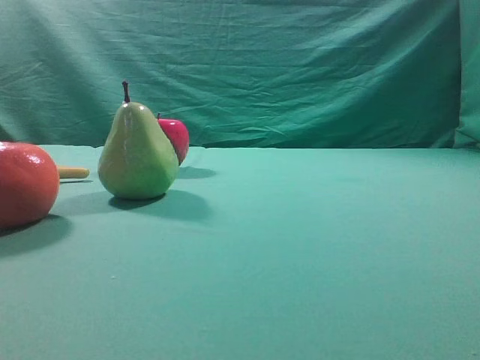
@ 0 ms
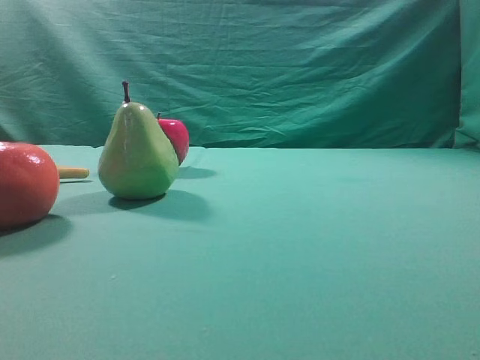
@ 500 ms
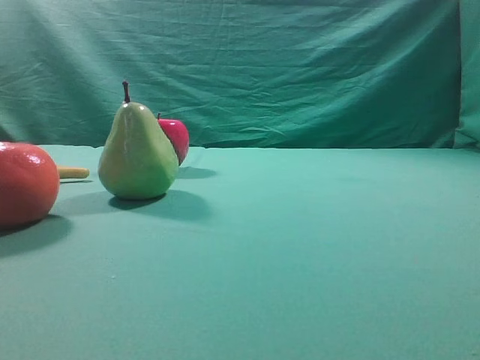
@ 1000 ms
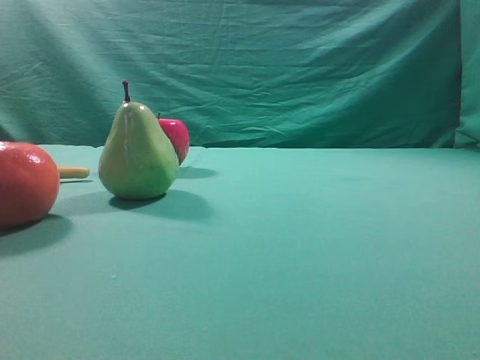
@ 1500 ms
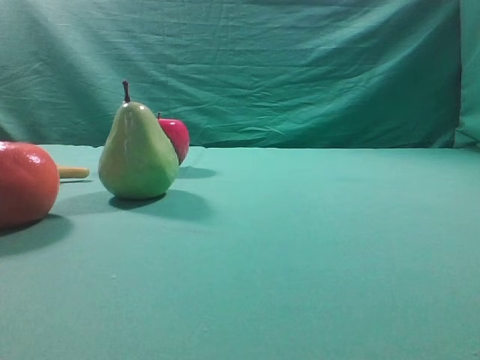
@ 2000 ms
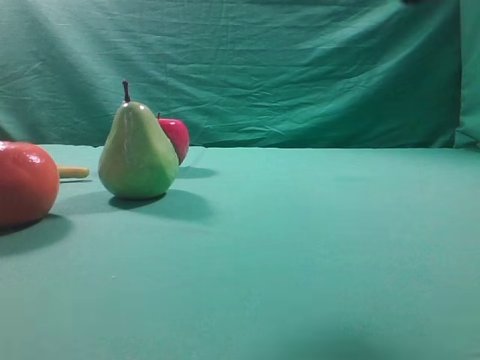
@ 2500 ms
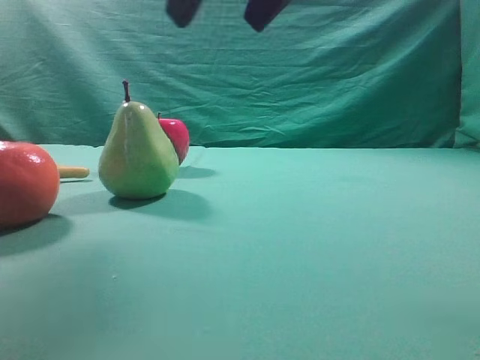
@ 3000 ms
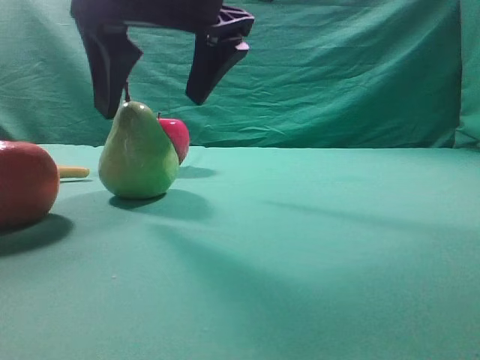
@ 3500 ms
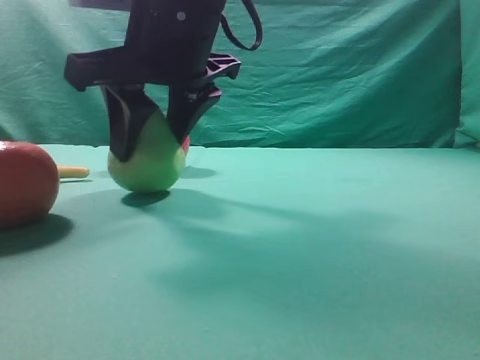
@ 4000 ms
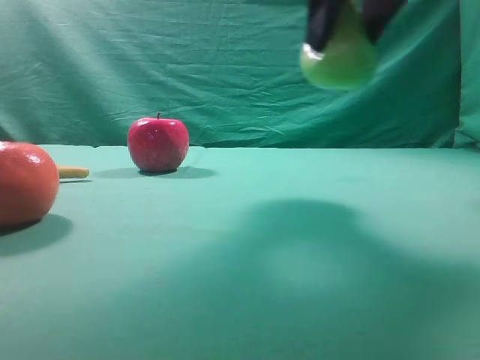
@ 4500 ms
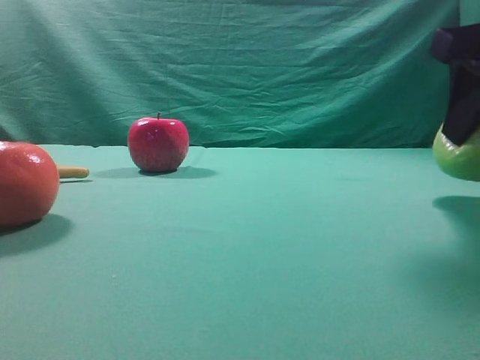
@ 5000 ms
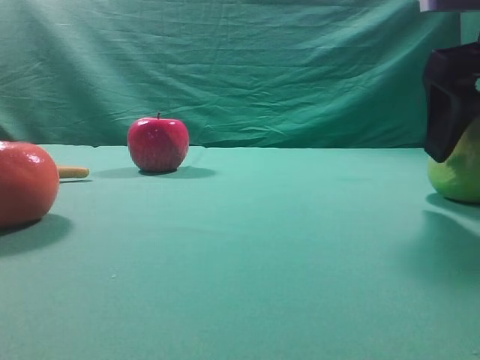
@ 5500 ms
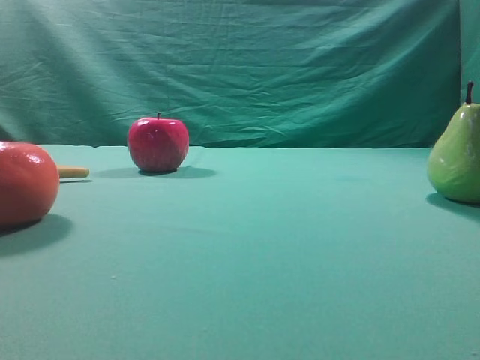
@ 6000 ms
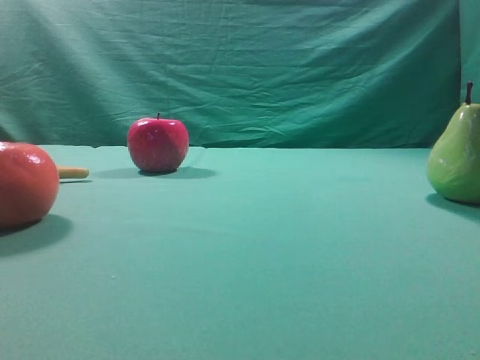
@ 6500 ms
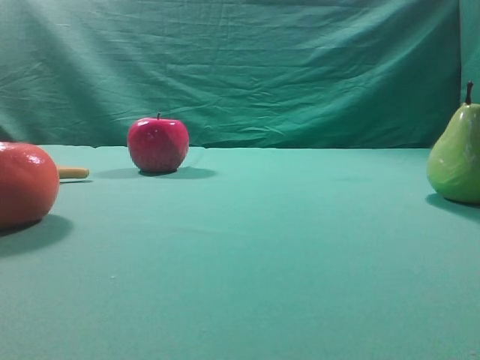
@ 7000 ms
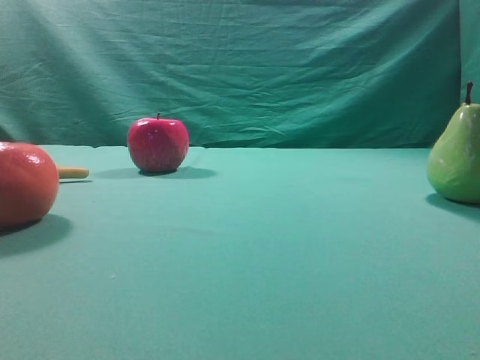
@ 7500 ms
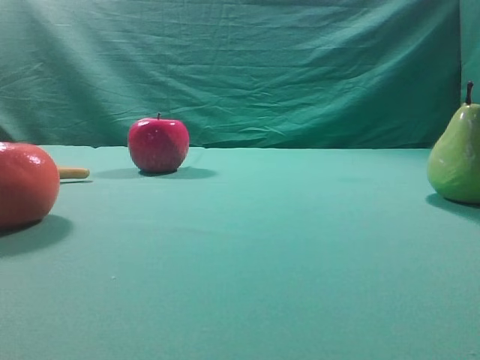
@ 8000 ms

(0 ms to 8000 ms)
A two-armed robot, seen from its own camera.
Task of the whole recording: Grasp the pear and place it on one side of the table.
Step, 0 ms - 4000 ms: Grasp the high-fiber fruit.
Step, 4500 ms - 5500 ms: Place it on the right side of the table.

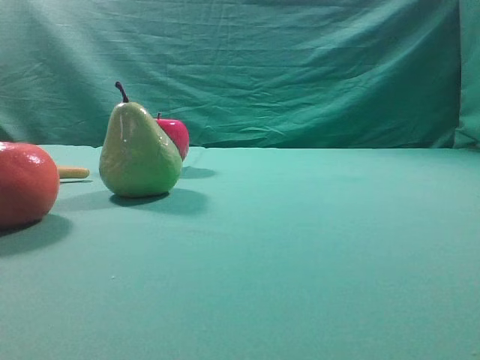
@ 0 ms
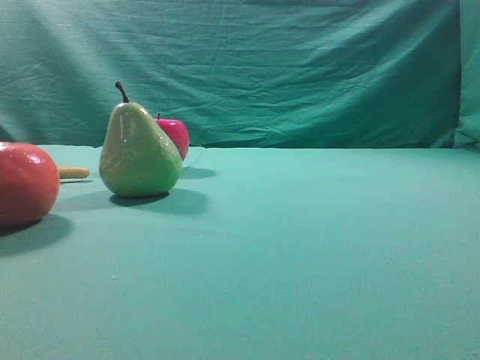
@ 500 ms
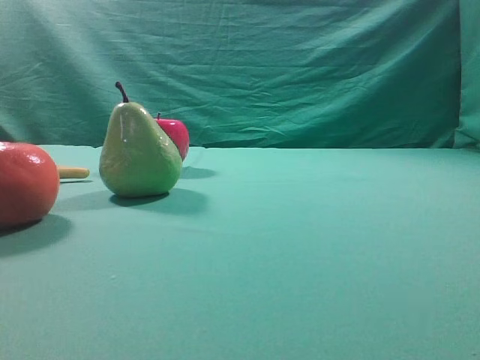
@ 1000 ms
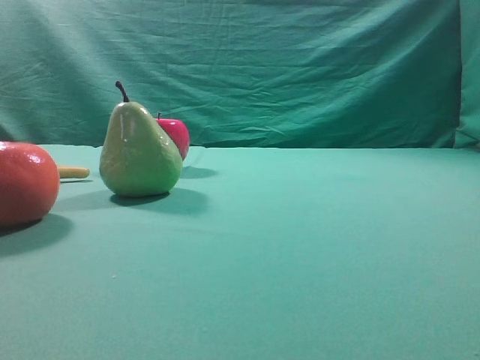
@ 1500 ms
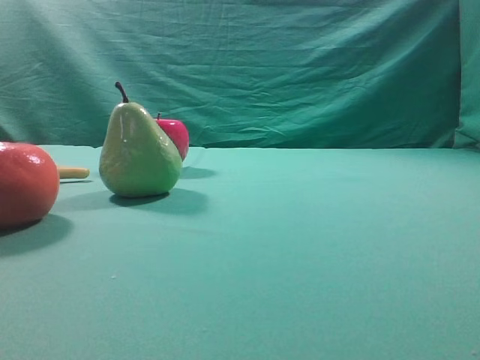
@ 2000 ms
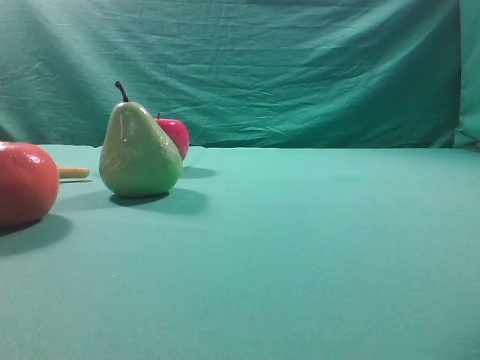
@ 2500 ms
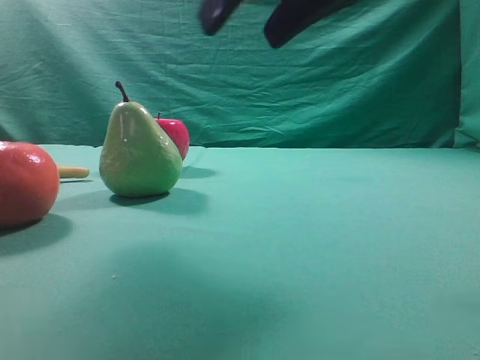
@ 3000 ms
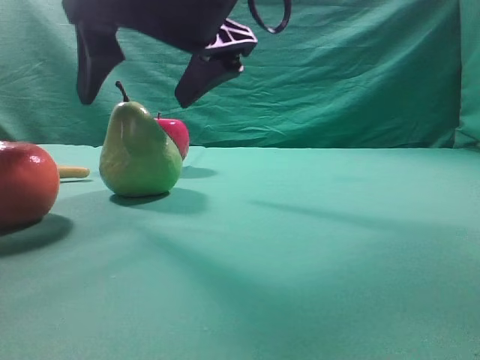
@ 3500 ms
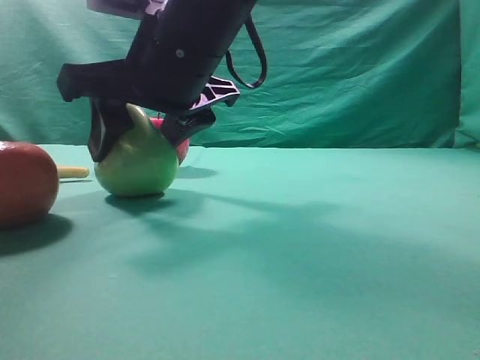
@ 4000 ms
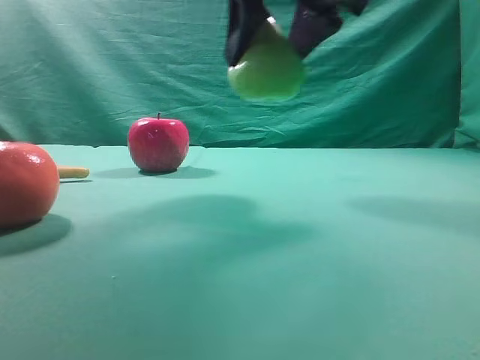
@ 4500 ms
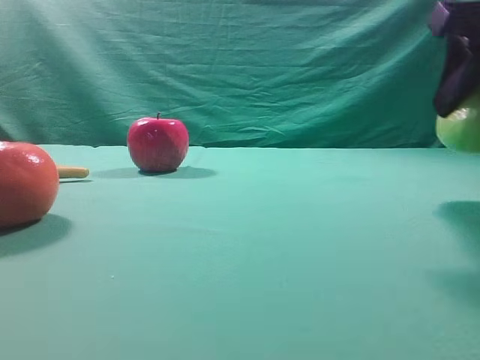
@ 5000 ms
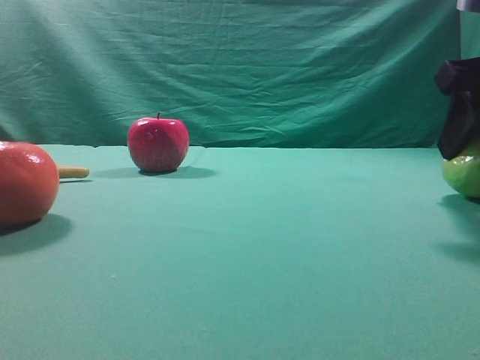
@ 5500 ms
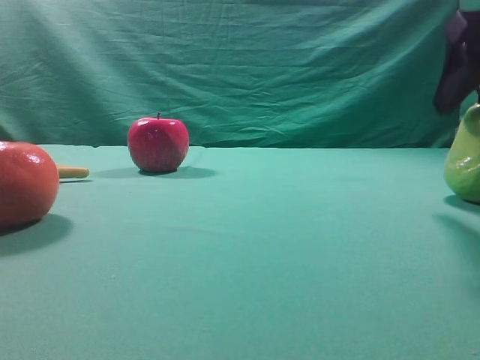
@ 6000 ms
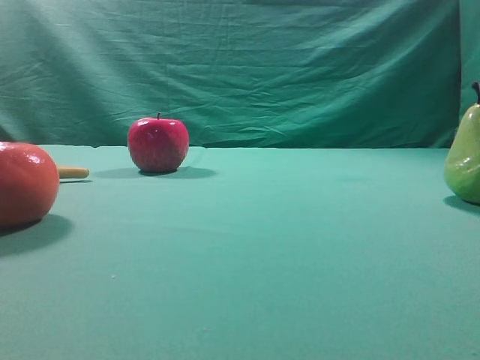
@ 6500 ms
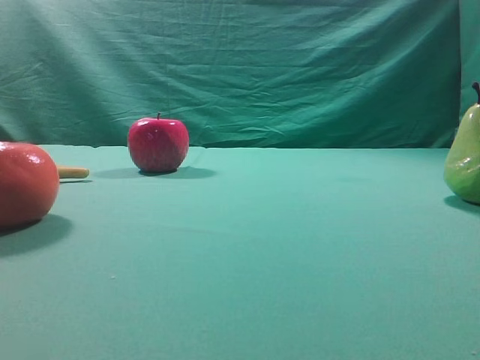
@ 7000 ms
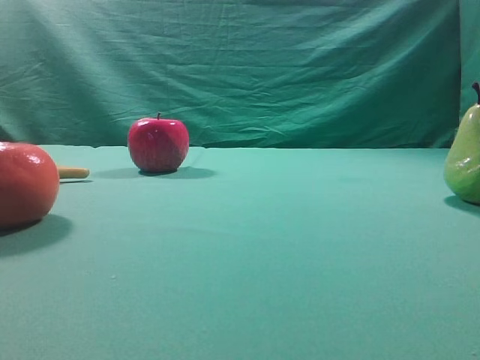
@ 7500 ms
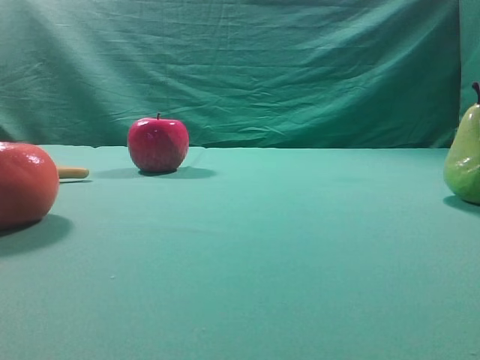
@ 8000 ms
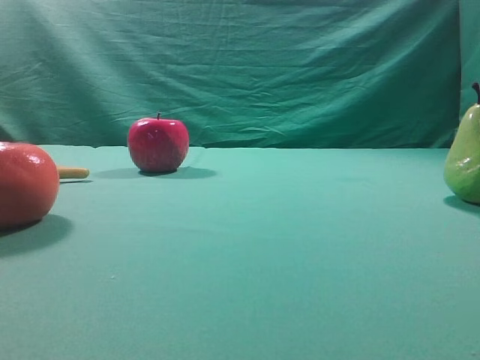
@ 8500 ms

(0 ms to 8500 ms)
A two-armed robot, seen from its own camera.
Task of the whole recording: Grasp the pear and place it on one side of the table.
Step, 0 ms - 4000 ms: Grasp the high-fiber fruit.
Step, 4500 ms - 6000 ms: Place it on the right side of the table.

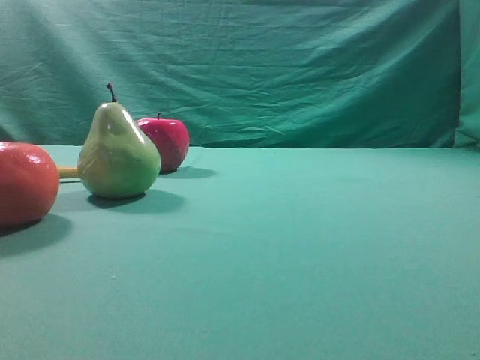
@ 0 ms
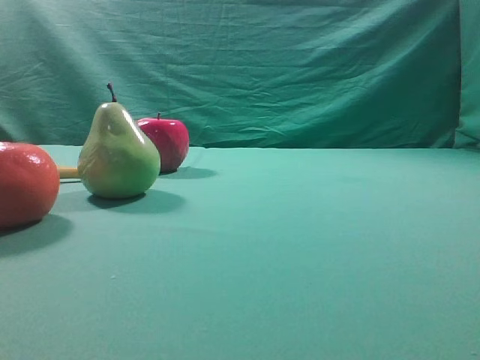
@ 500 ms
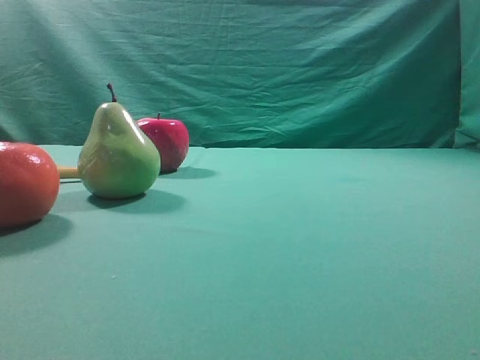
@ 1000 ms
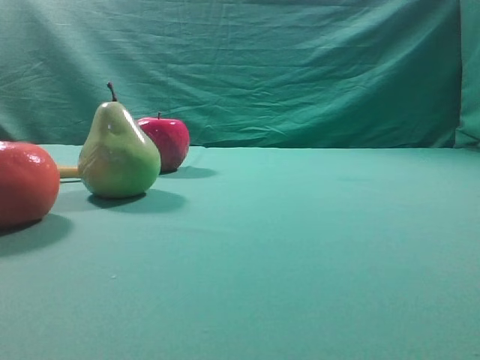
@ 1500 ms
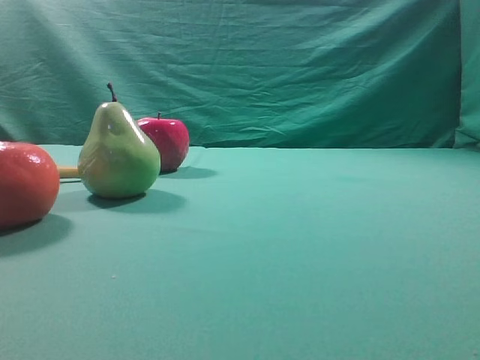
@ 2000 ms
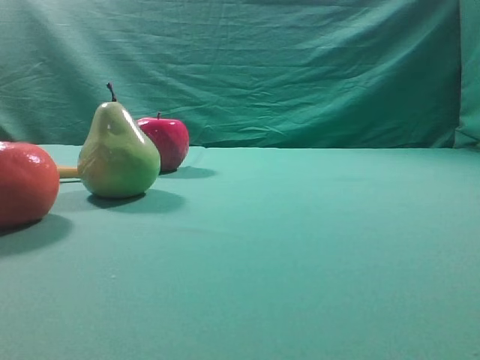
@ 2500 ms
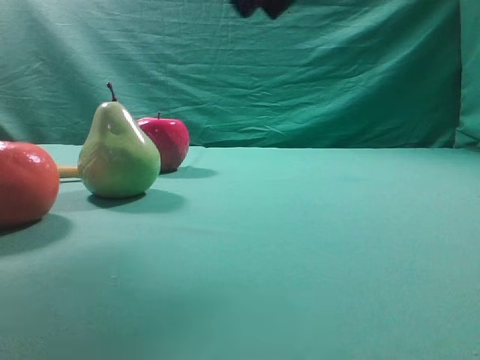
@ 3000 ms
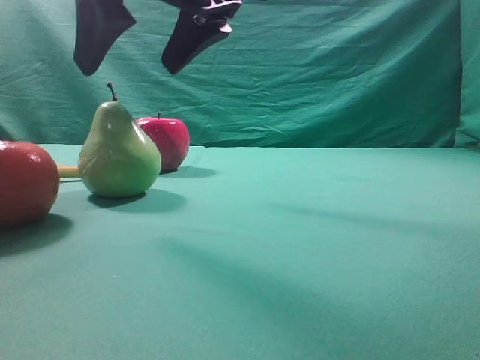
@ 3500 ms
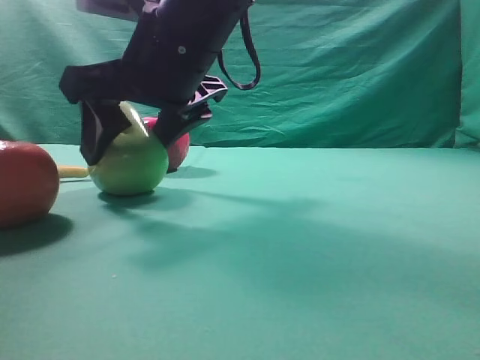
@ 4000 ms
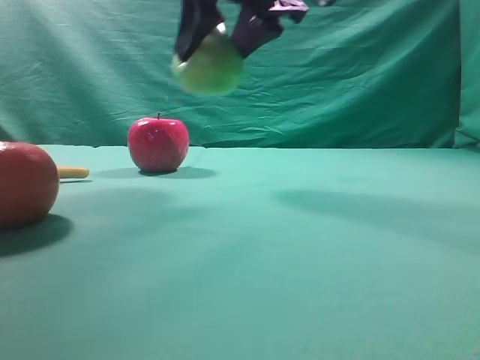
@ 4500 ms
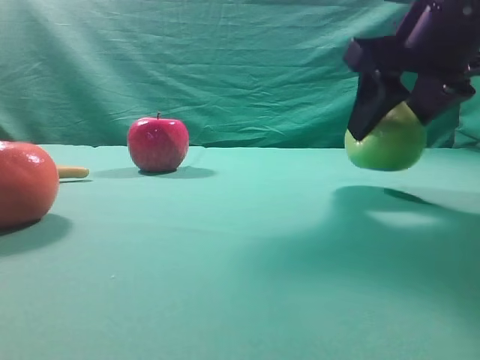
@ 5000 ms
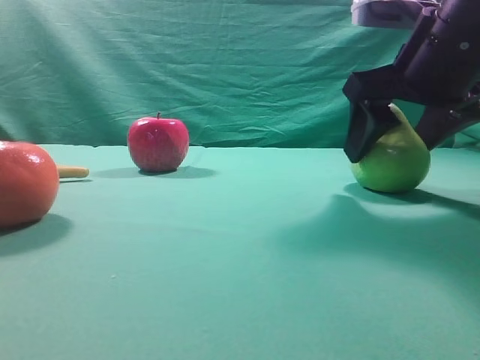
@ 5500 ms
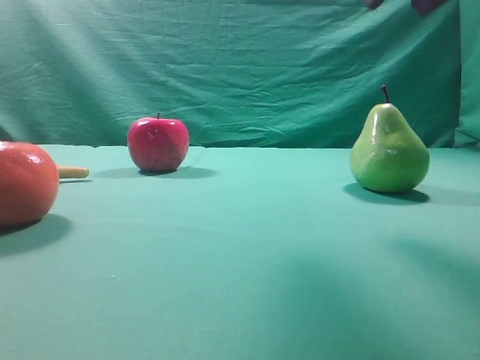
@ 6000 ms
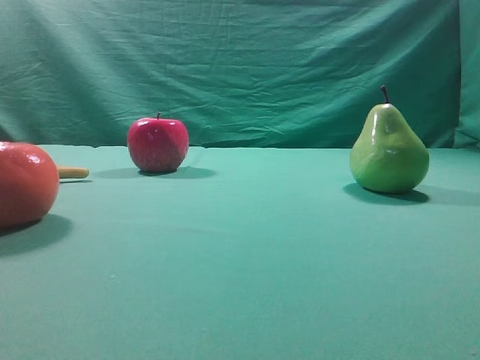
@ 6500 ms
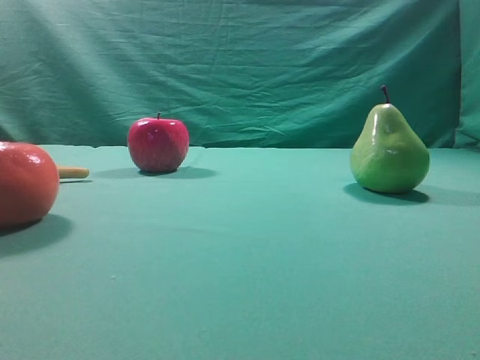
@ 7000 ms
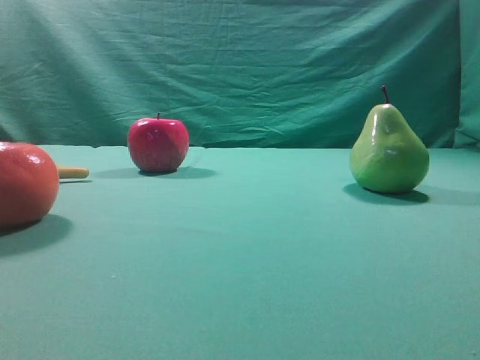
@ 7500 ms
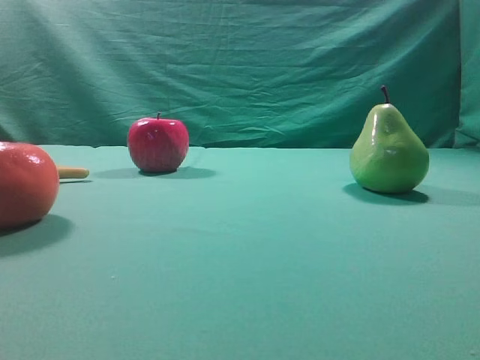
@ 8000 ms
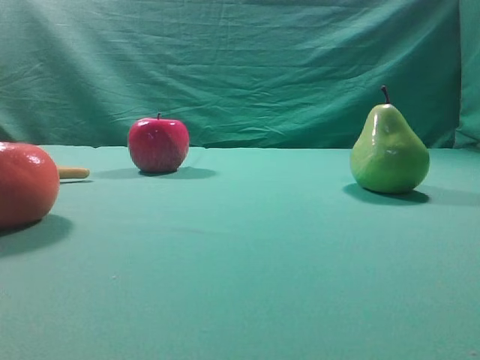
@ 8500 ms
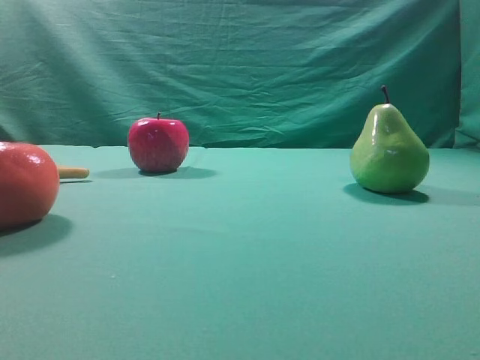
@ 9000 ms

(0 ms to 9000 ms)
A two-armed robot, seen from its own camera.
Task of the whole recording: Grasp the pear and place it on one side of the table.
Step, 0 ms - 4000 ms: Grasp the high-fiber fruit.
Step, 4500 ms - 5500 ms: Place it on the right side of the table.
